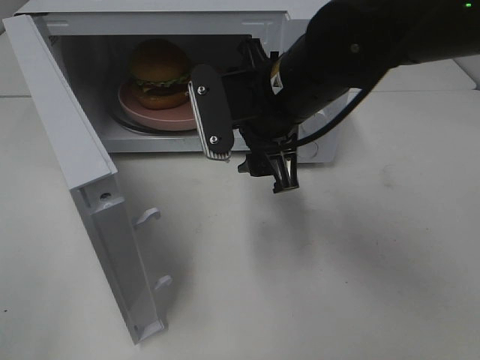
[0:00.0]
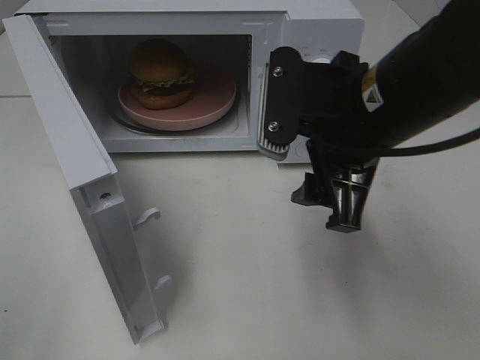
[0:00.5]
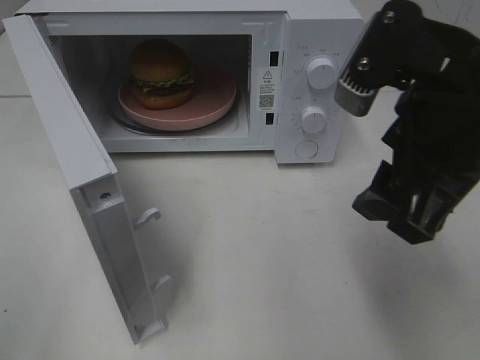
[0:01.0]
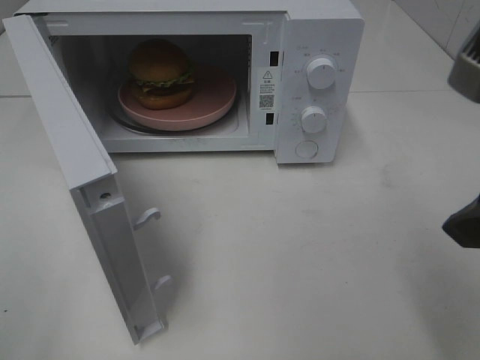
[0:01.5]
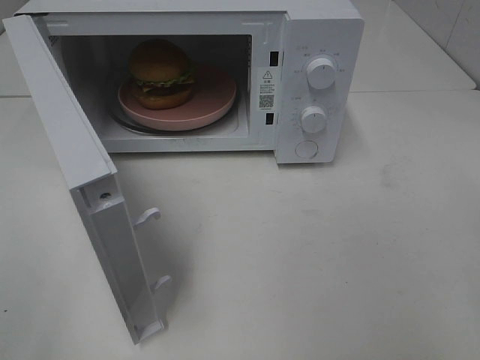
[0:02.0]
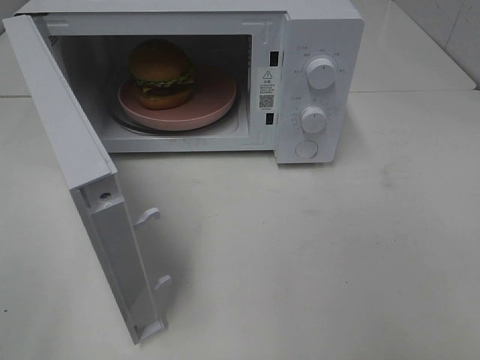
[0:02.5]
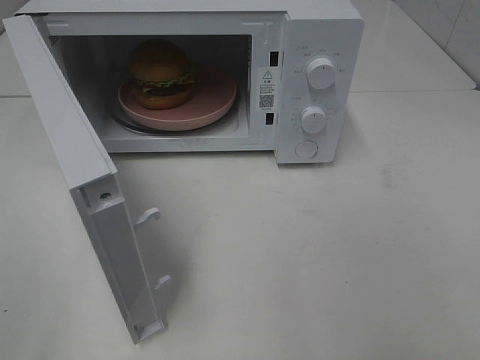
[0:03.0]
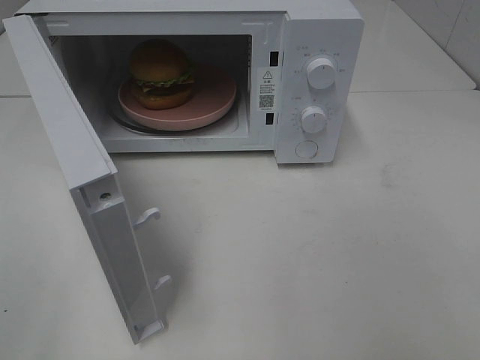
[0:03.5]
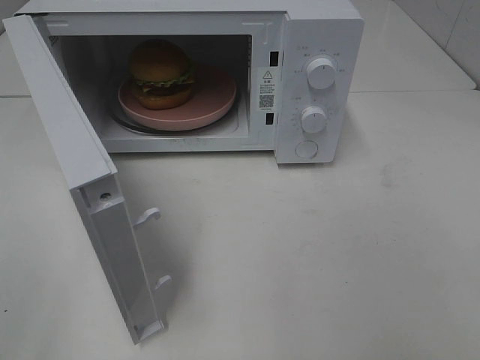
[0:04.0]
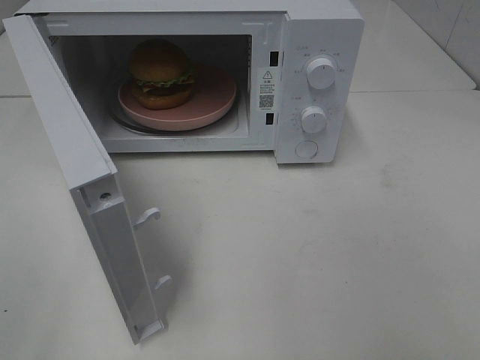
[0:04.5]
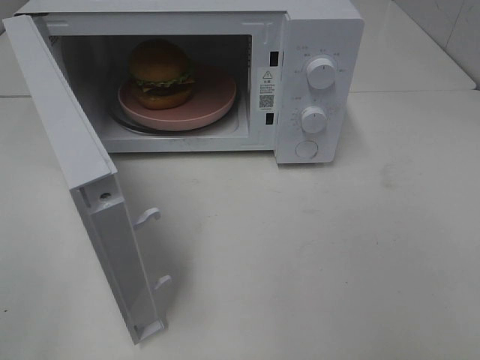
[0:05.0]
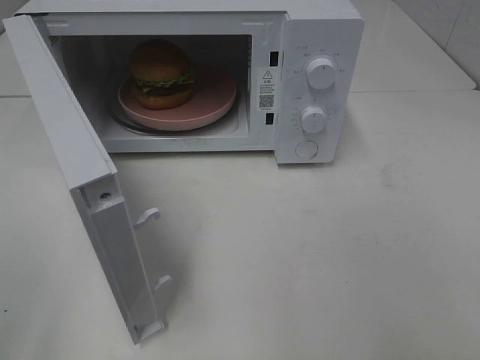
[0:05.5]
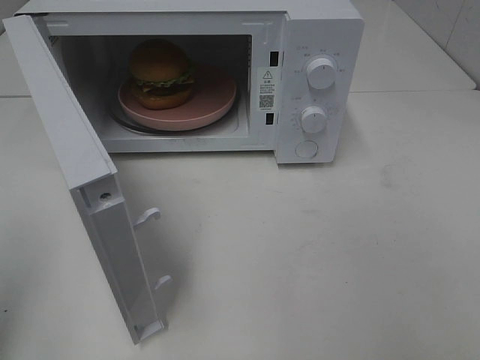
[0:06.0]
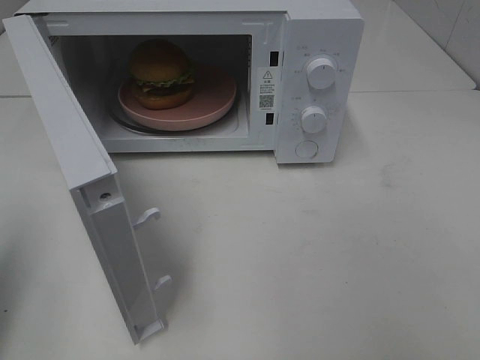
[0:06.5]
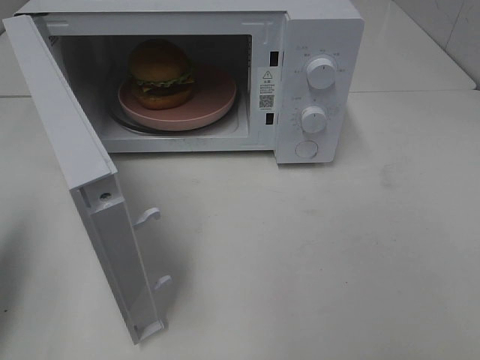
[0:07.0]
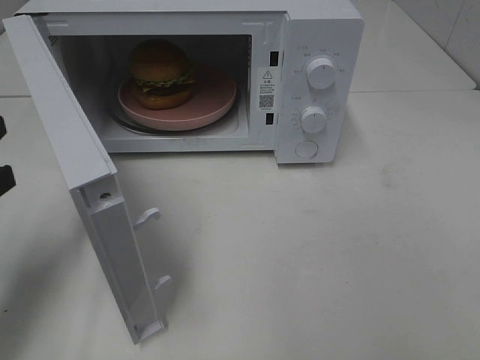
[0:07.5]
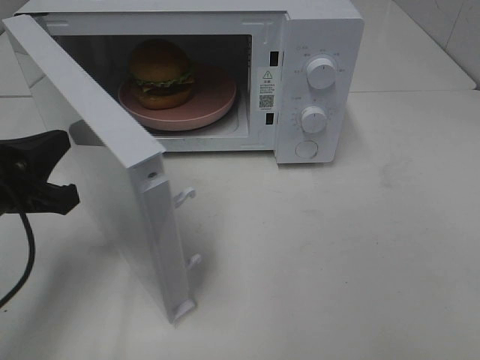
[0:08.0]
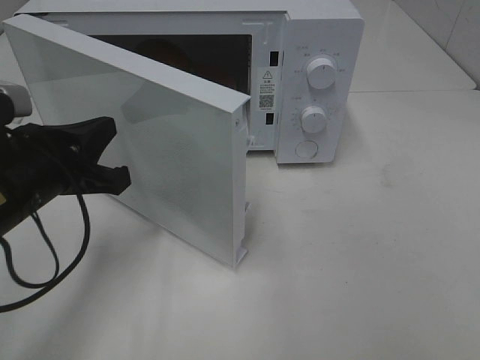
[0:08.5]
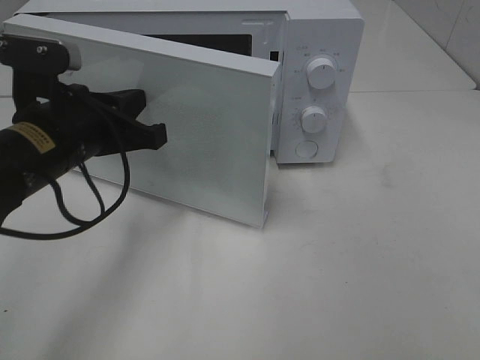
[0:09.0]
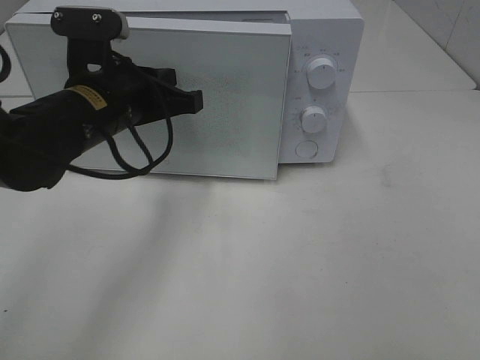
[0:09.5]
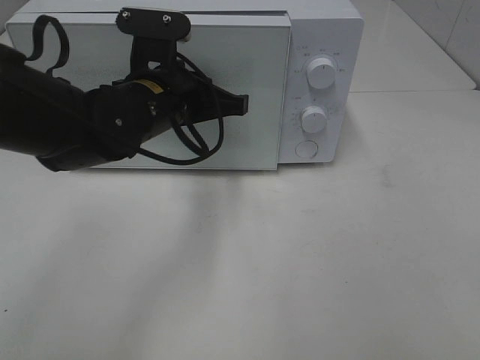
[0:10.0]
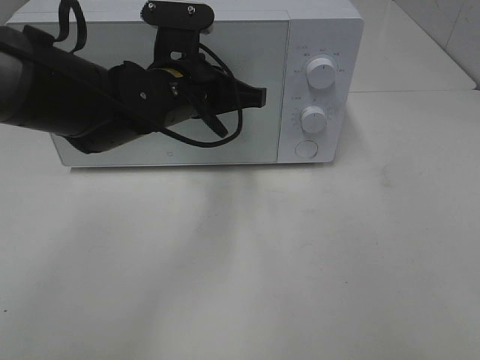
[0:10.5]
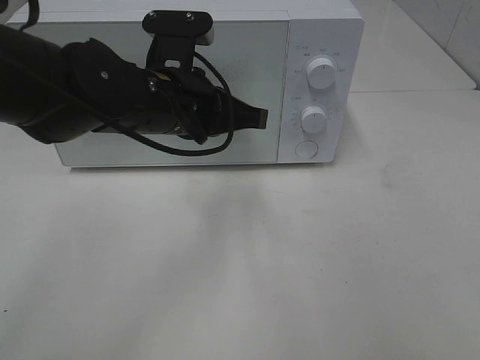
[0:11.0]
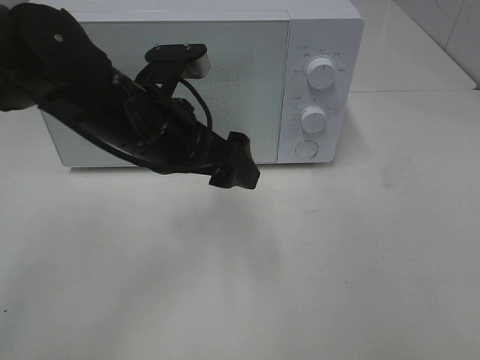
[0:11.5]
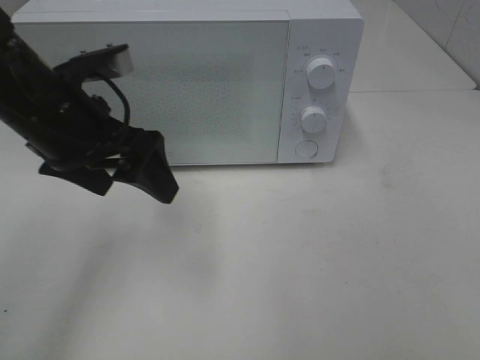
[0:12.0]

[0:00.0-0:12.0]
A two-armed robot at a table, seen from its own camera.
Task of the whole recording: Heat the burger.
Step, 0:00.0 to 0:11.0: Left hand: close the microwave door.
0:00.0 to 0:02.0: The right gripper is displaced to the right and backward by some 30 cm.
0:06.0 to 0:08.0: The left gripper goes some 20 cm downward, forward and to the right.
0:08.0 to 0:10.0: The left gripper goes some 20 cm to the right and forward.
0:10.0 to 0:12.0: The left gripper moves to the left and backward, some 10 cm, and opens up.

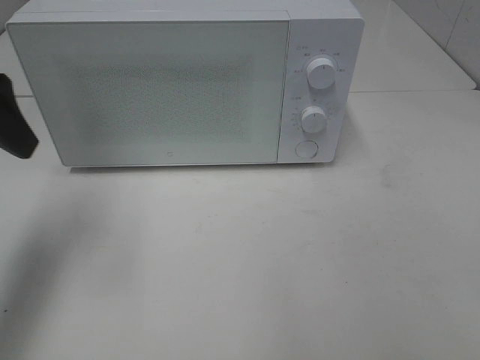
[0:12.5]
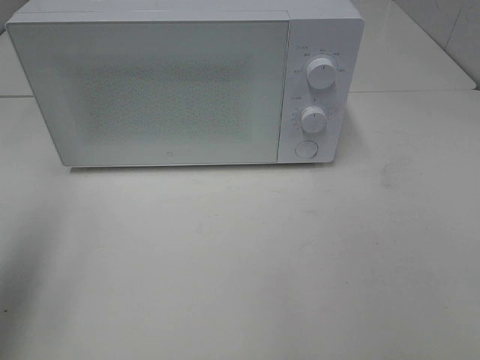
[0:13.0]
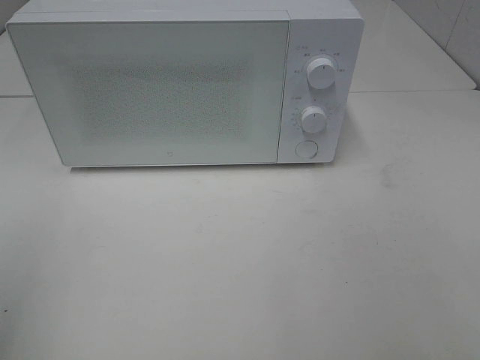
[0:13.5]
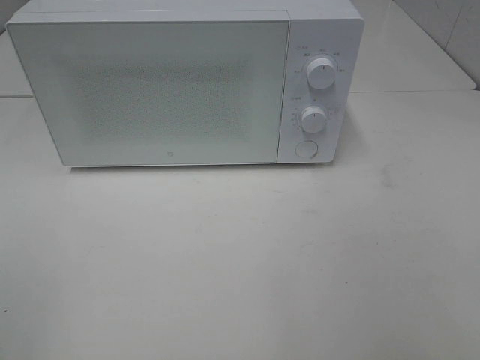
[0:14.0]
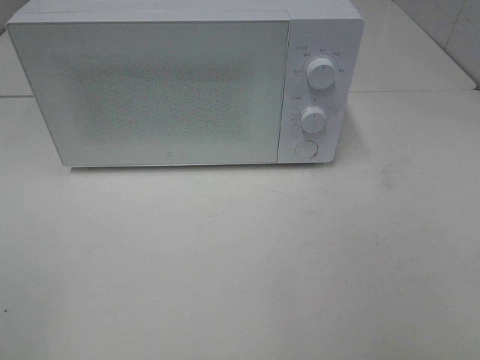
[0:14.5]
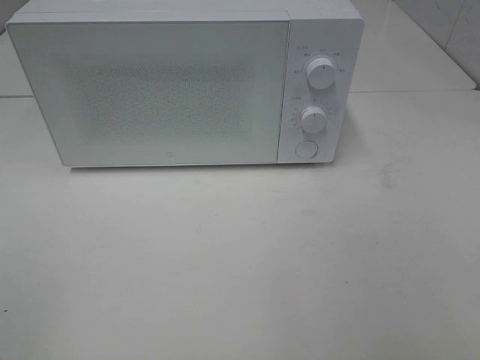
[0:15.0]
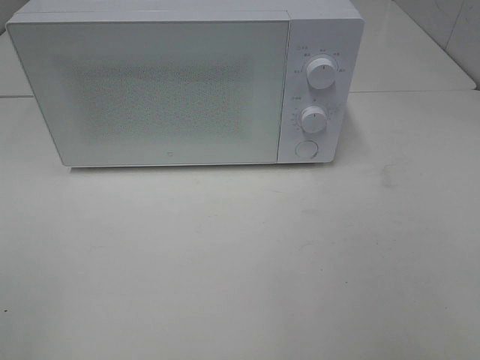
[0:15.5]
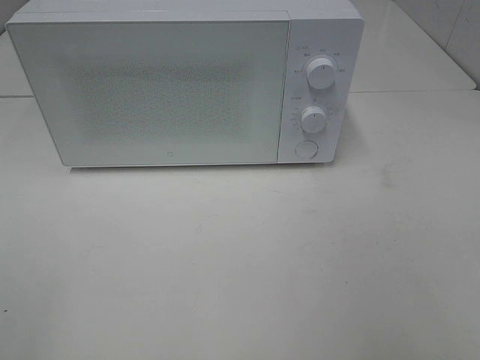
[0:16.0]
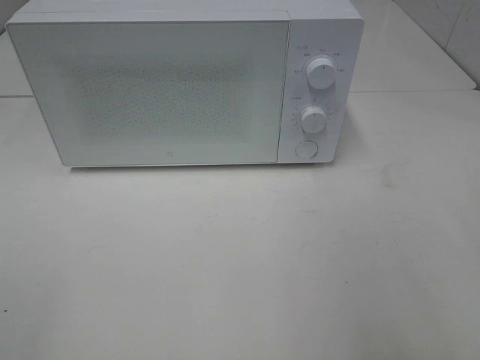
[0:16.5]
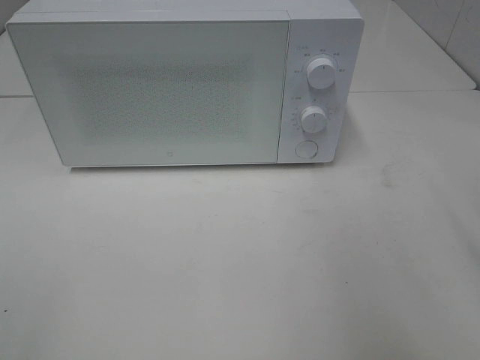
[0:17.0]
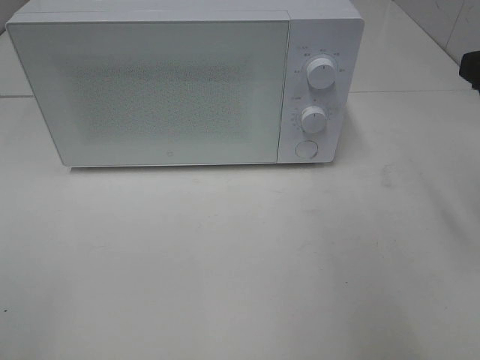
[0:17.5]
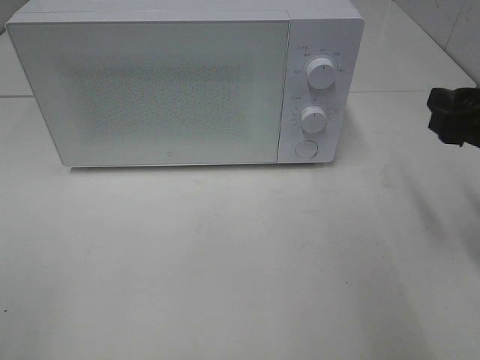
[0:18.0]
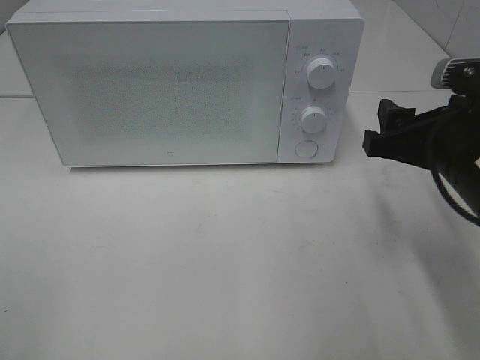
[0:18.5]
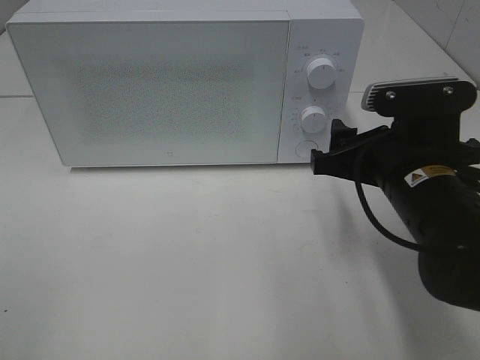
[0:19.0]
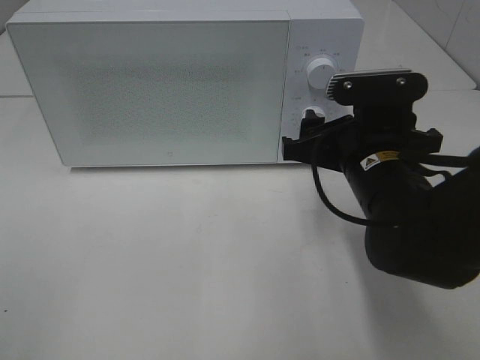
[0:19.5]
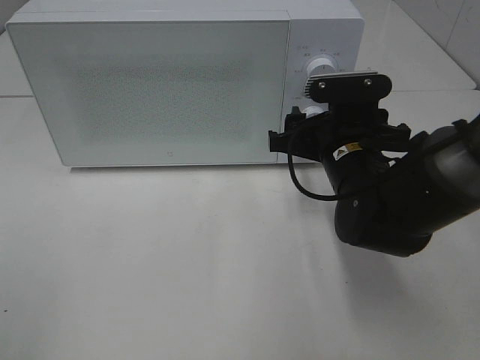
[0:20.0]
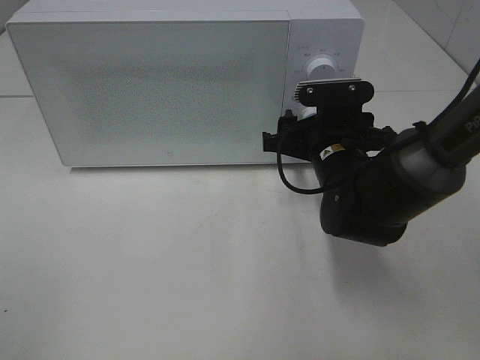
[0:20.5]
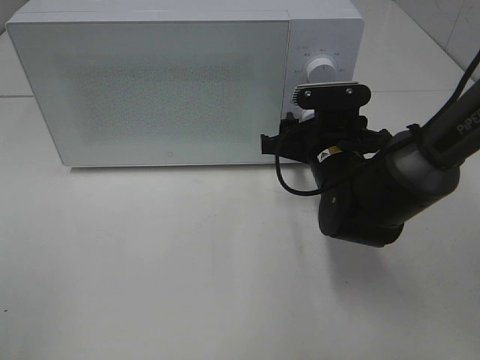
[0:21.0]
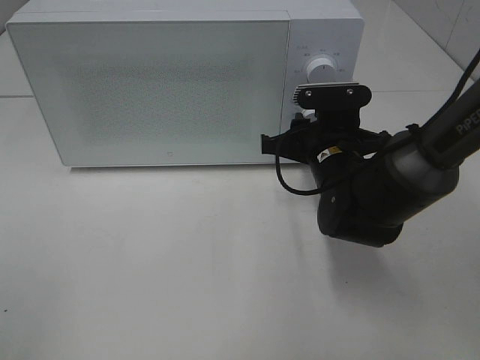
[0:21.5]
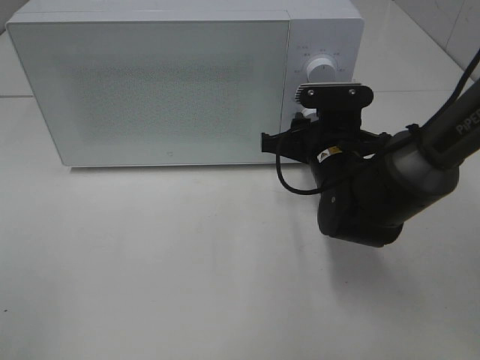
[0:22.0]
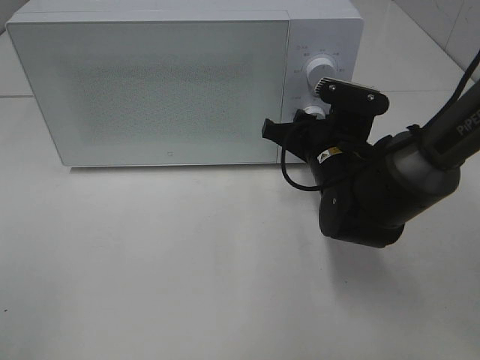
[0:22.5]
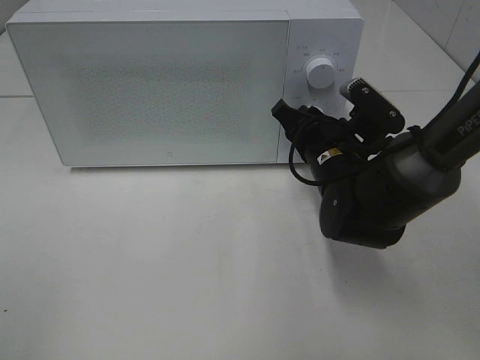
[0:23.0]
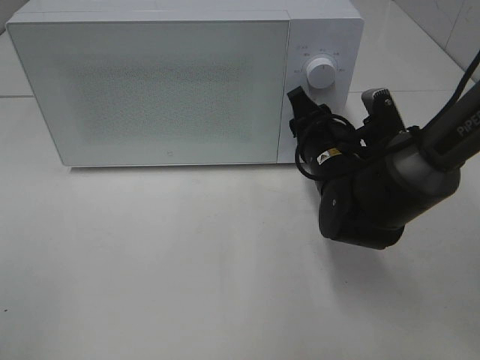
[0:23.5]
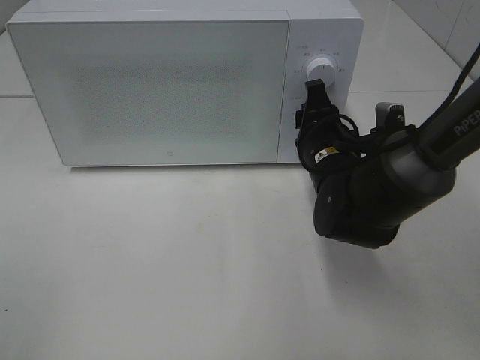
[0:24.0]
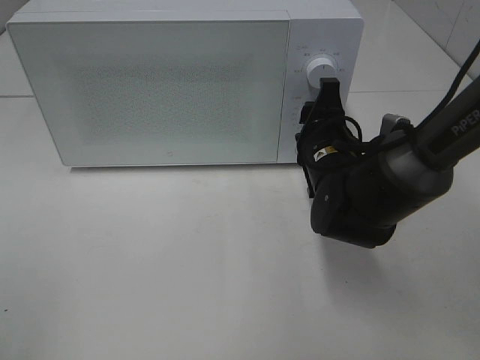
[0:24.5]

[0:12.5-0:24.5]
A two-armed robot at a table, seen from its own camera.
Task of the whole recording: Heat the burger.
0:12.5 to 0:14.5: The left gripper heads backward, covering roughly 25 cm.
0:16.5 to 0:18.5: The right gripper moves forward, downward and to the left, roughly 20 cm.
0:18.5 to 0:20.5: The right gripper goes about 15 cm forward, to the left and downward.
0:20.5 to 0:22.5: The right gripper closes its fingers.

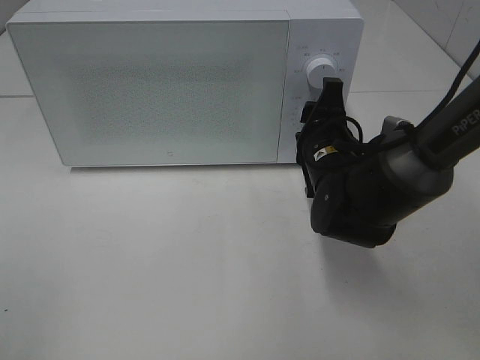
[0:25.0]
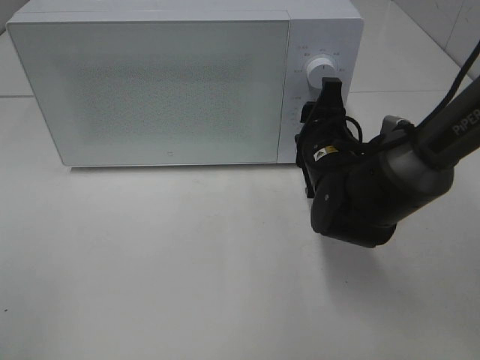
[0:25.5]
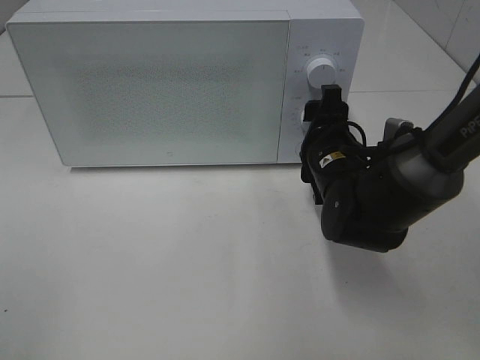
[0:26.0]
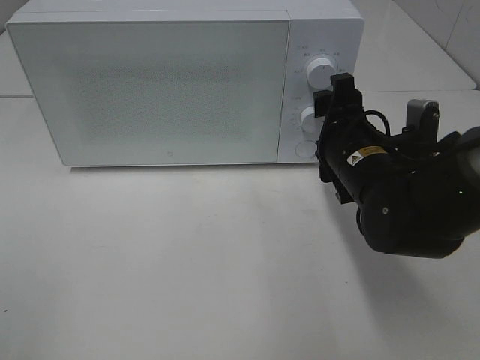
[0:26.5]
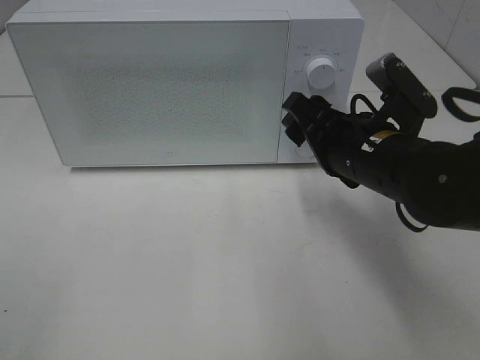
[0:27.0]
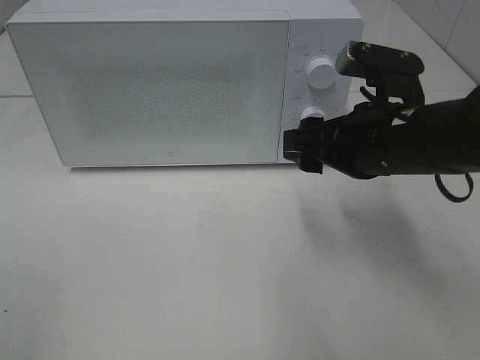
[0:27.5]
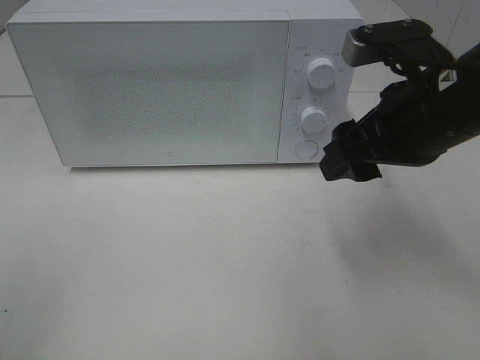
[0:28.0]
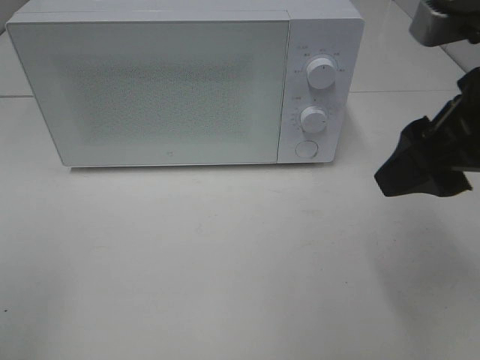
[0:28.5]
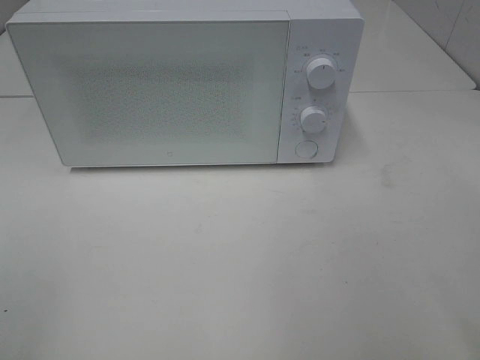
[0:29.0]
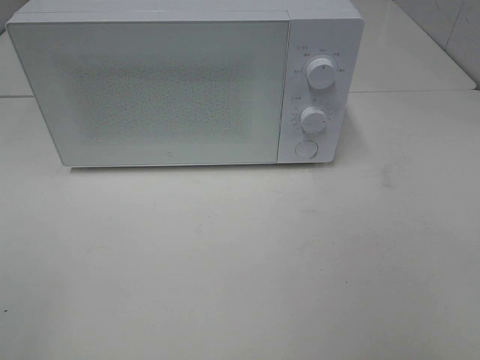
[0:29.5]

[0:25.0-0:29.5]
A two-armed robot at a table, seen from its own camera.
Task of the whole recording: Heat the burger.
0:25.0 to 0:27.0: The right gripper shifts approximately 10 cm backward and upward.
0:27.0 to 0:29.5: The right gripper travels backward, to the right and upward by about 30 cm.
